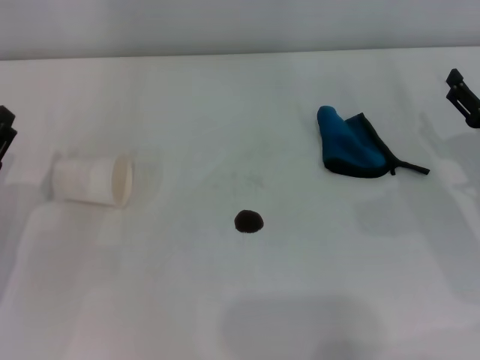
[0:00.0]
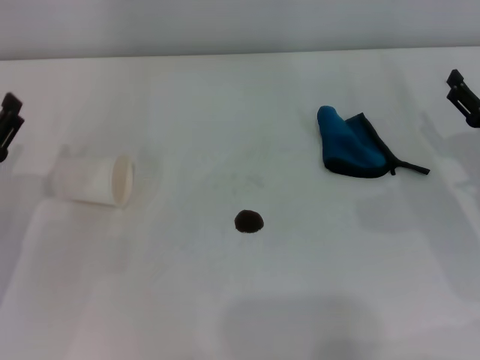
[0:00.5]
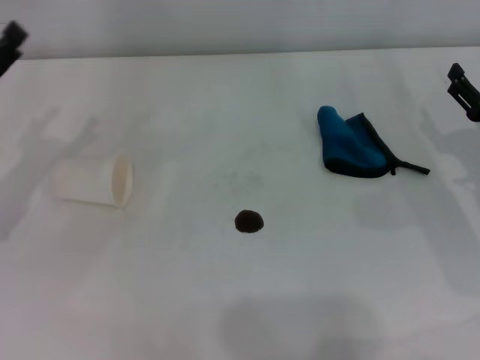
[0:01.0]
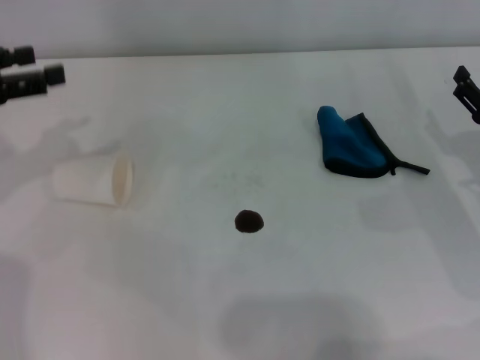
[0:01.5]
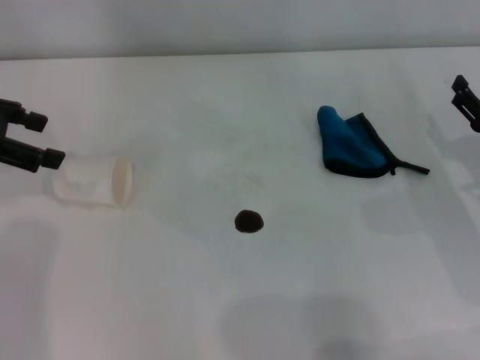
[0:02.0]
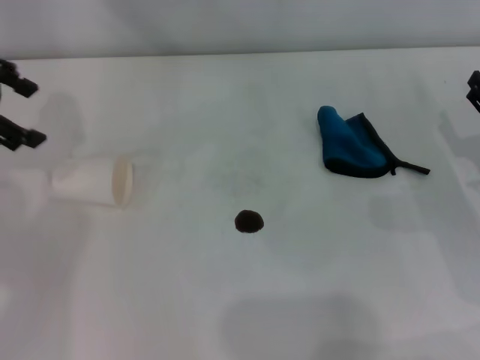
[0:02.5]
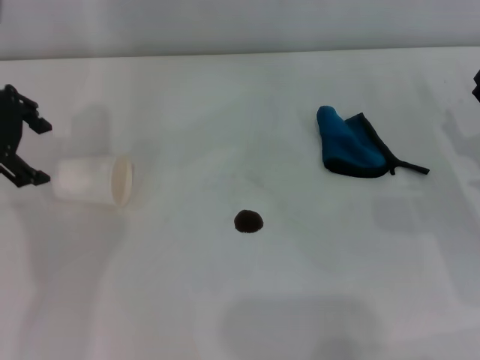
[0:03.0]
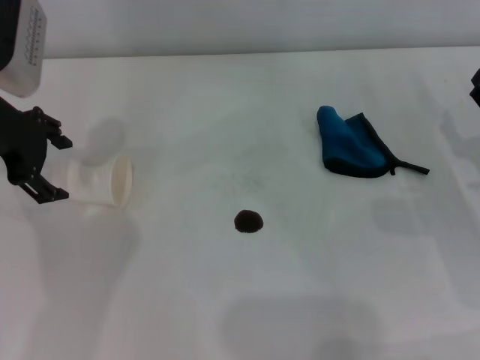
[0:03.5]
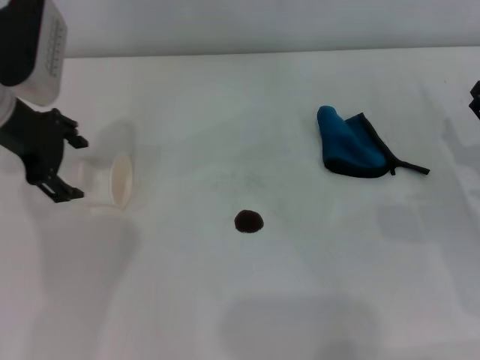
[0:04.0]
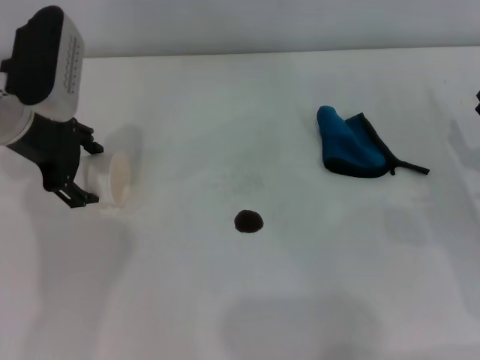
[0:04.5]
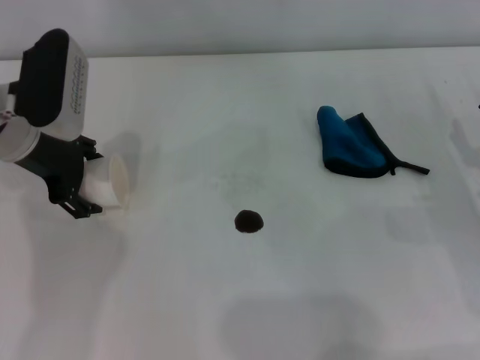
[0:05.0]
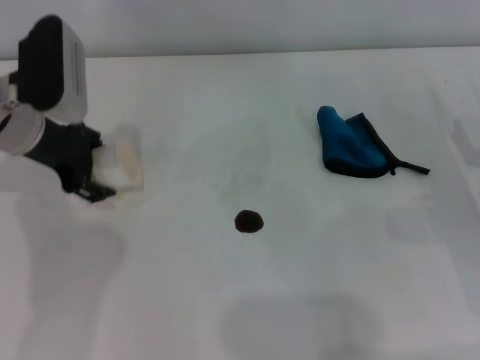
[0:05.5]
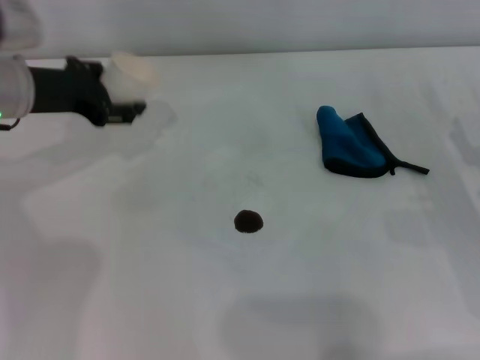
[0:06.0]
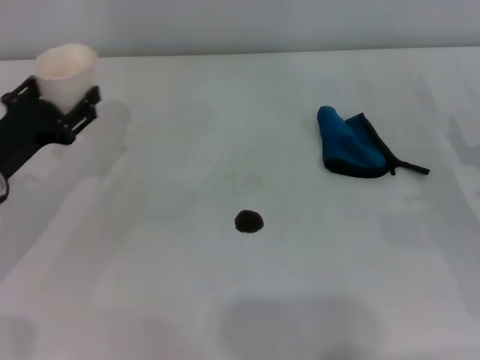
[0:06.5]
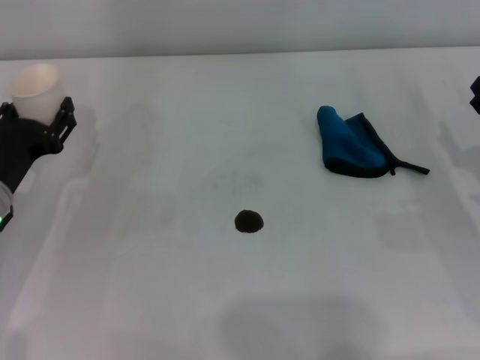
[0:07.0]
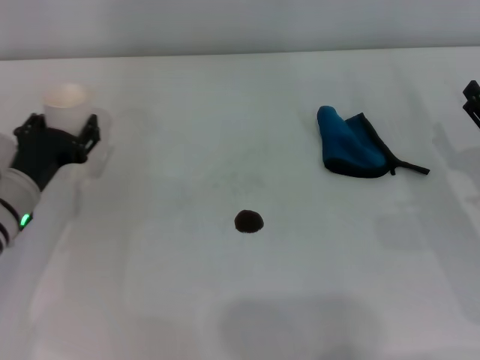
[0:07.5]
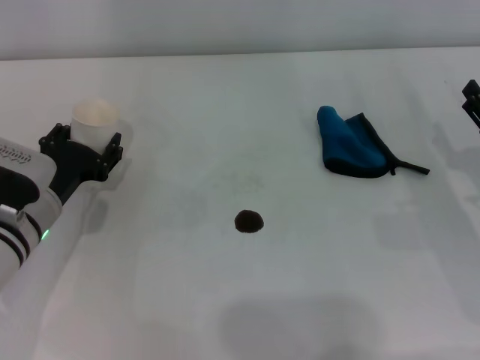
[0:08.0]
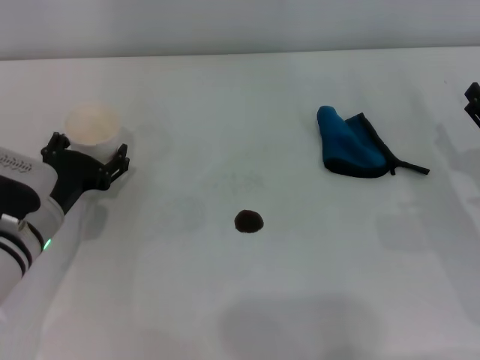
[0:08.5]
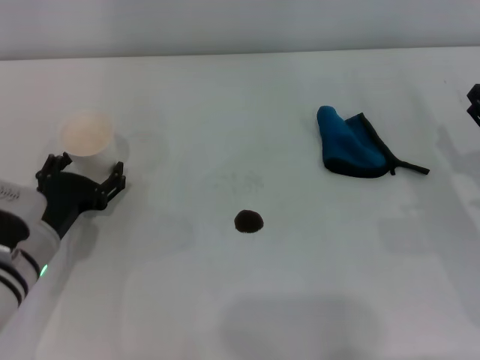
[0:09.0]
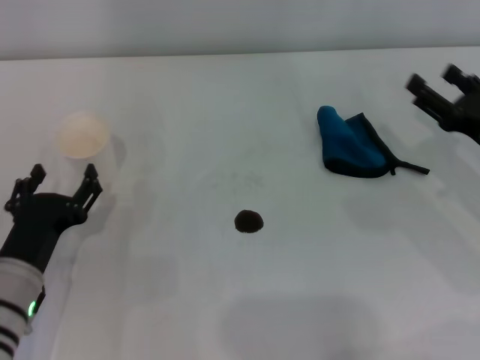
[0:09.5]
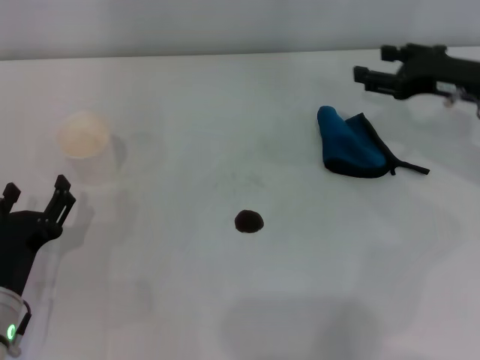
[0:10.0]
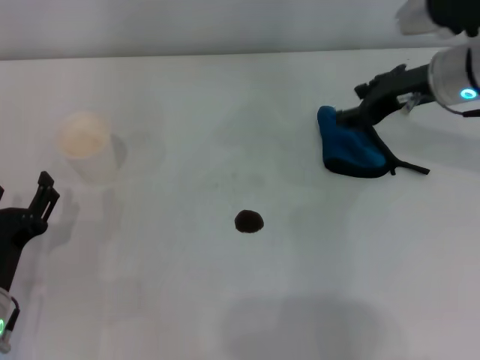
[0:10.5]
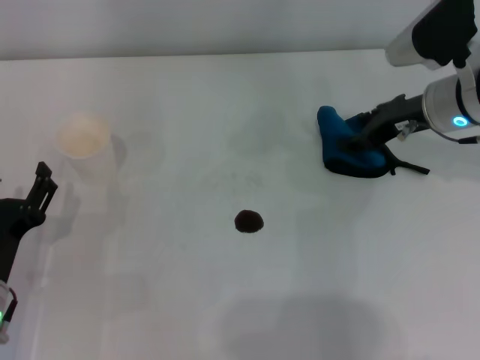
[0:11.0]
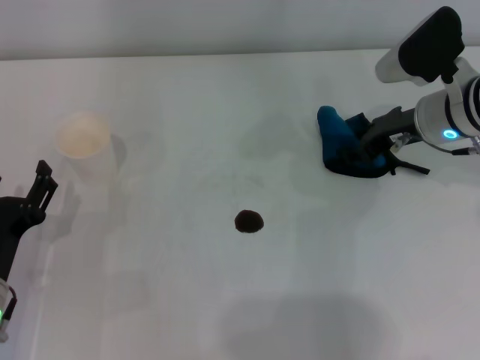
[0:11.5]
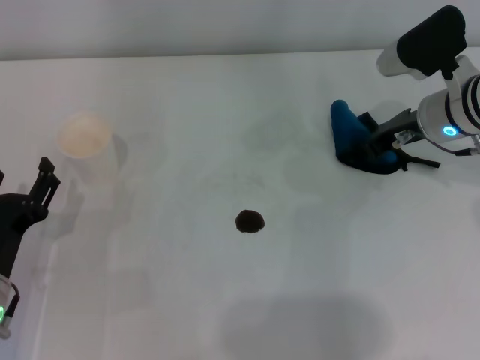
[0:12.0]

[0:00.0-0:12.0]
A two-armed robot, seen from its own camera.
Step, 0:00.0 to 0:05.0: Grasp the paper cup with the left gripper.
Step, 0:05.5 to 0:09.0: Stand the paper cup upright with the left gripper.
0:00.0 to 0:02.0: The left gripper goes approximately 20 cm upward and forward.
0:02.0 to 0:04.0: The left gripper heads to the right, covering approximately 10 cm.
0:04.0 to 0:06.0: The left gripper closes.
0:06.0 to 0:08.0: The left gripper shifts roughly 15 cm downward and backward.
0:08.0 to 0:10.0: The left gripper travels backward by some 10 cm, and opens, while the right gripper moves forward and upward, approximately 15 cm.
0:10.0 to 0:12.0: The right gripper moves about 5 cm, and closes up.

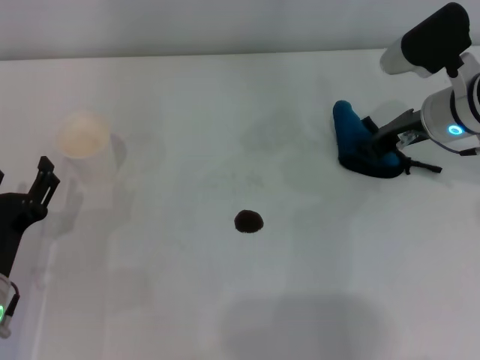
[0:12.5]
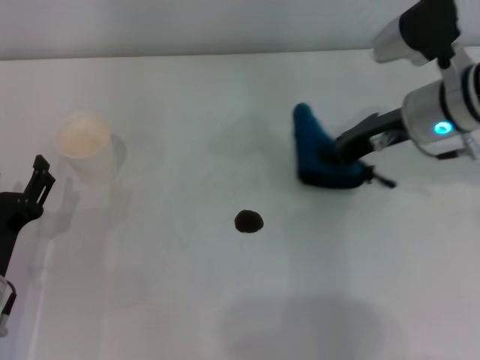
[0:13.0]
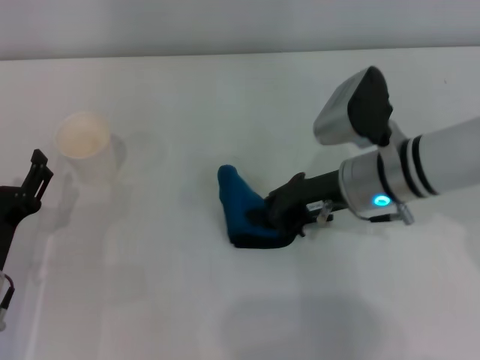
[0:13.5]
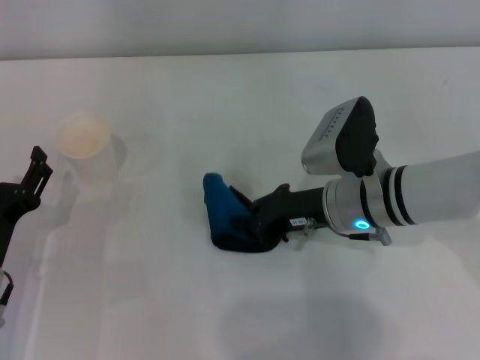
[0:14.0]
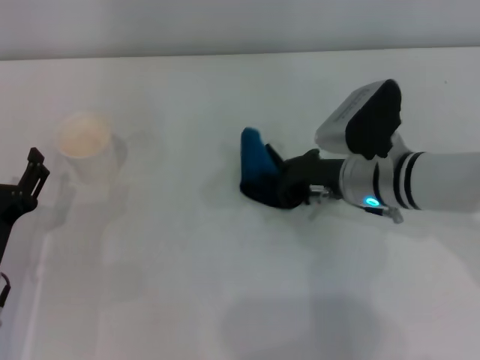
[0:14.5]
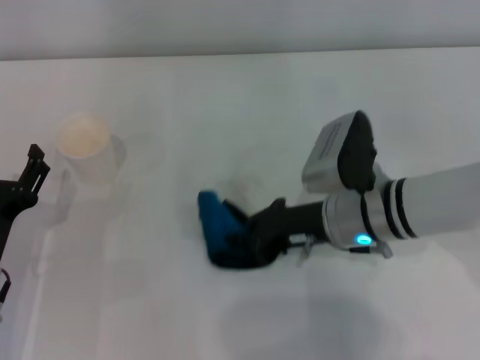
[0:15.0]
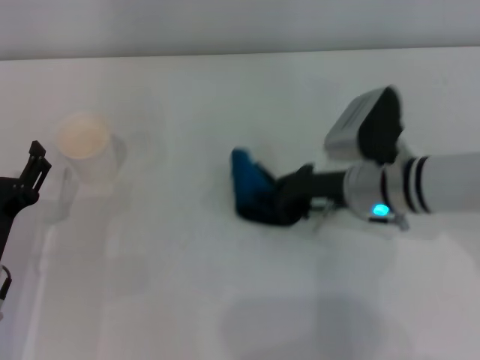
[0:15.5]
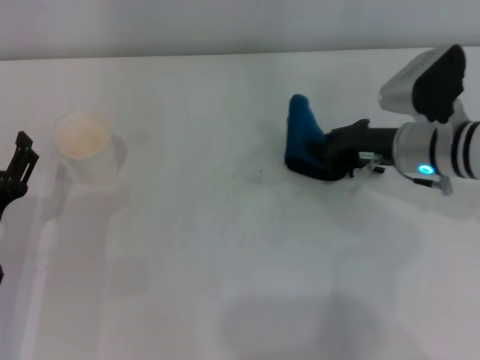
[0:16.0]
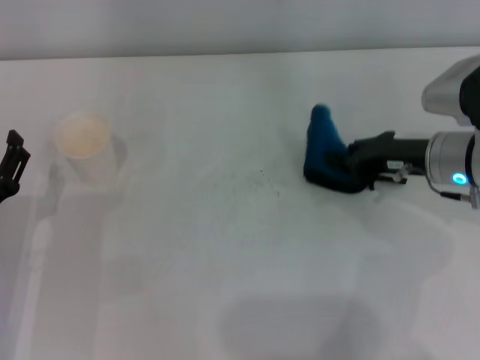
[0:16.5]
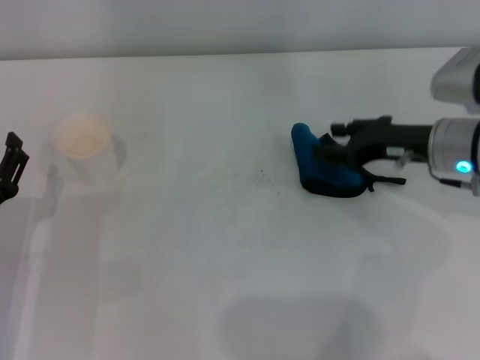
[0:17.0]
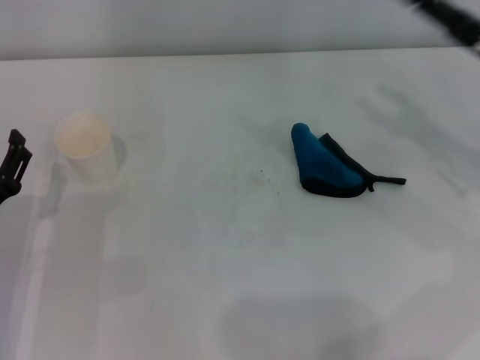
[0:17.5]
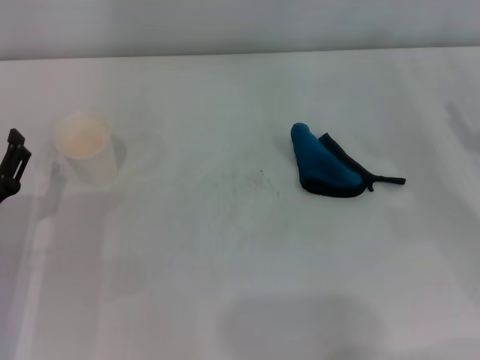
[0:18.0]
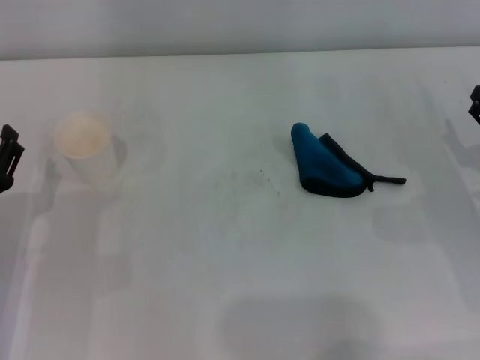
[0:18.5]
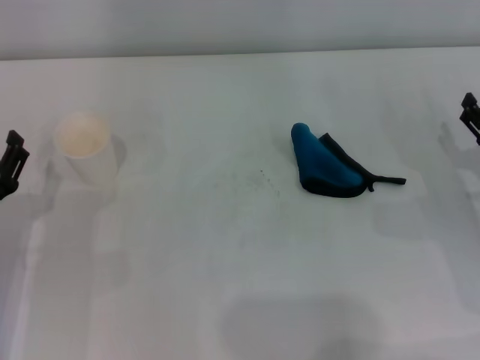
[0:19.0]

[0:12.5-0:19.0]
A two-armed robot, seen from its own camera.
Step, 0:12.5 to 0:15.5: Wipe the stains off the table with the right gripper.
Step, 0:16.0 to 0:16.5: Place the rag on the table with the right gripper.
0:12.5 to 0:14.5: The right gripper moves to the left and downward, roughly 10 cm.
0:14.5 to 0:17.0: The right gripper heads to the right, covering approximately 10 cm, and opens its fingers.
0:17.0 to 0:19.0: The right gripper goes about 10 cm backward, to the right and downward, and opens its fingers.
